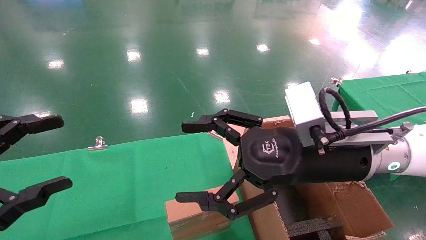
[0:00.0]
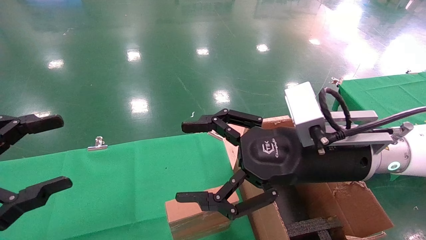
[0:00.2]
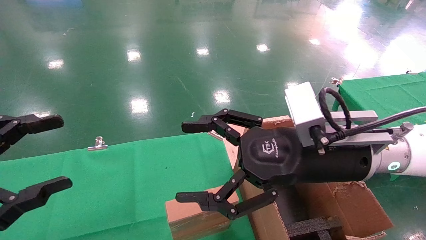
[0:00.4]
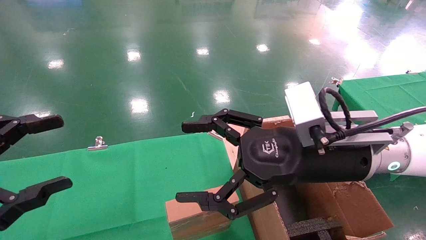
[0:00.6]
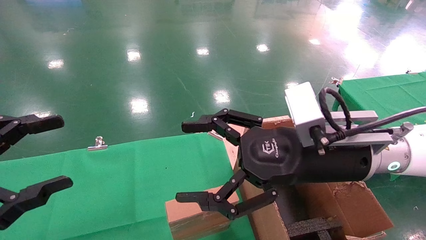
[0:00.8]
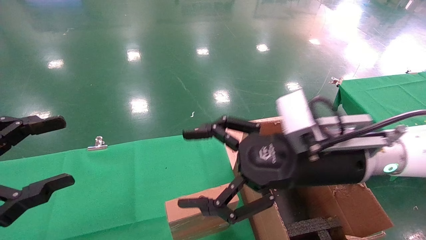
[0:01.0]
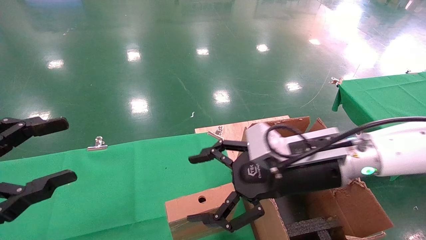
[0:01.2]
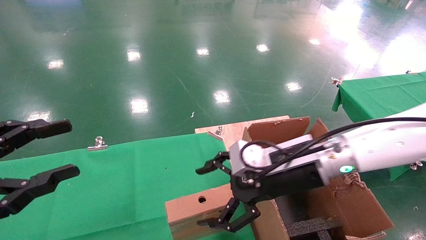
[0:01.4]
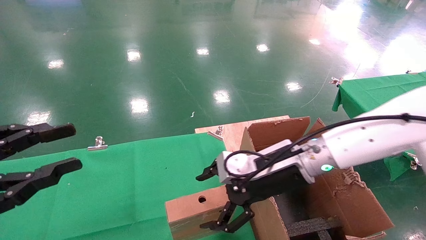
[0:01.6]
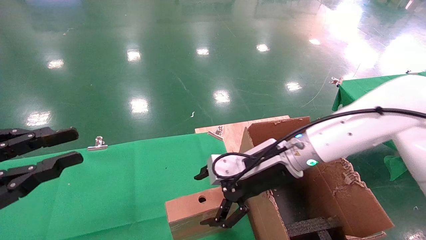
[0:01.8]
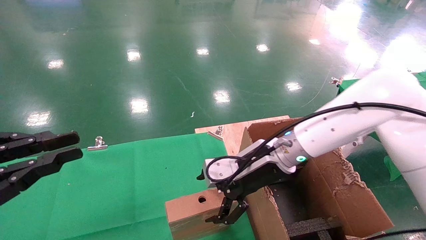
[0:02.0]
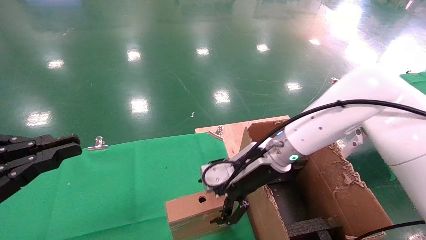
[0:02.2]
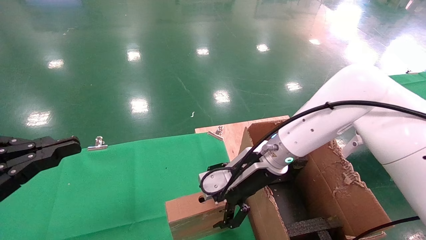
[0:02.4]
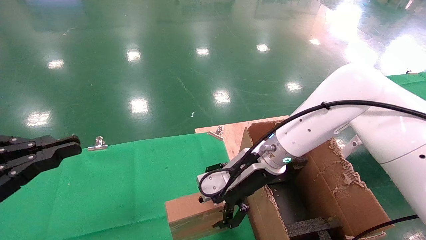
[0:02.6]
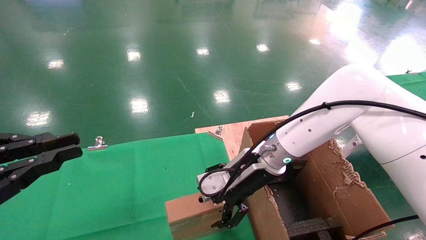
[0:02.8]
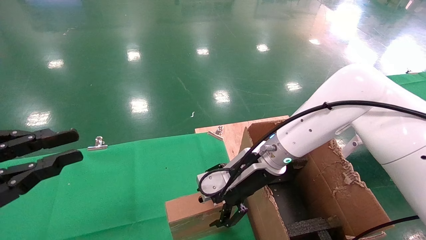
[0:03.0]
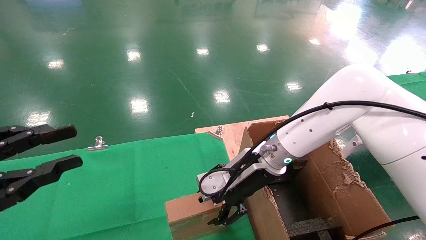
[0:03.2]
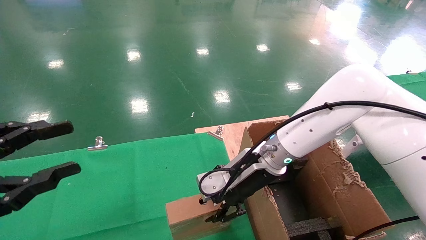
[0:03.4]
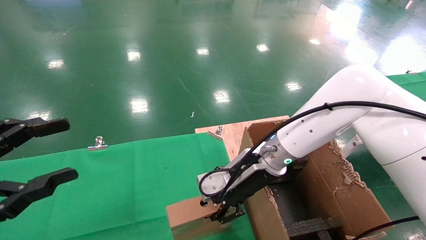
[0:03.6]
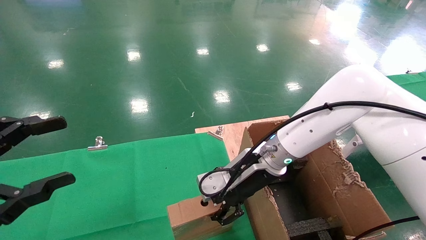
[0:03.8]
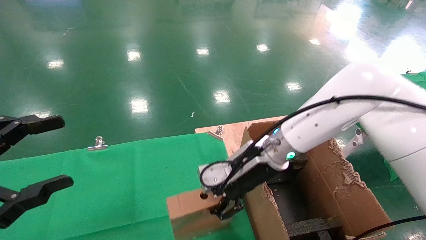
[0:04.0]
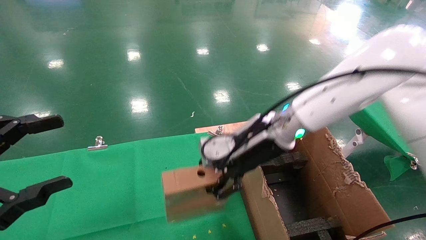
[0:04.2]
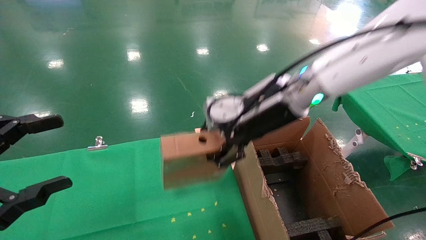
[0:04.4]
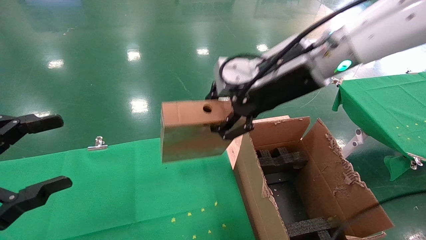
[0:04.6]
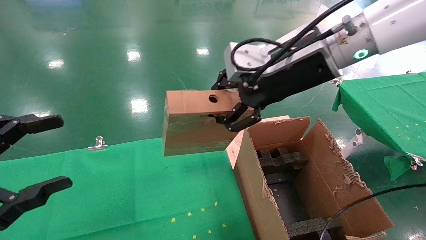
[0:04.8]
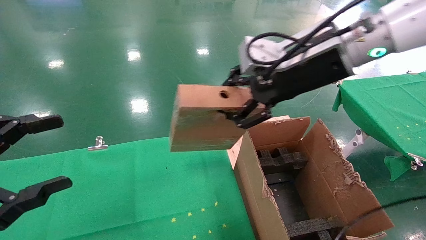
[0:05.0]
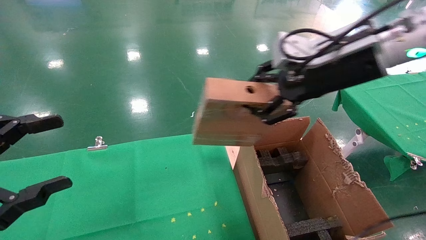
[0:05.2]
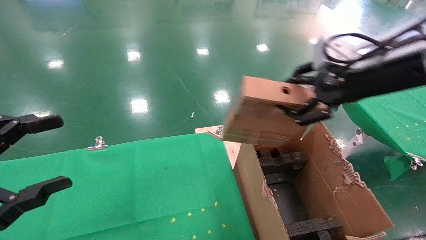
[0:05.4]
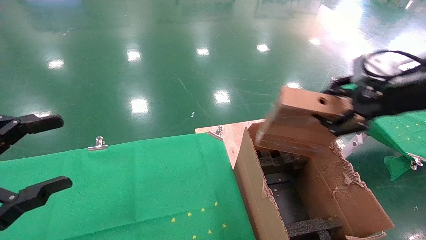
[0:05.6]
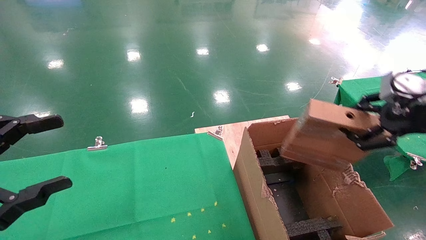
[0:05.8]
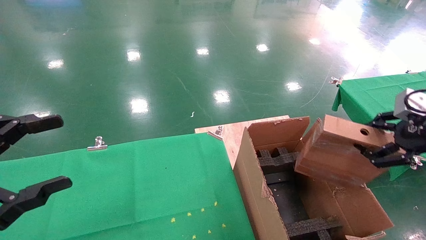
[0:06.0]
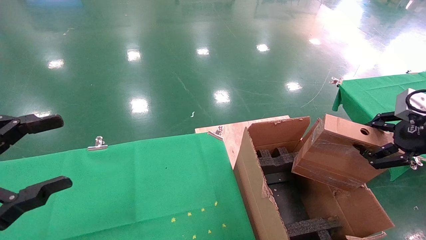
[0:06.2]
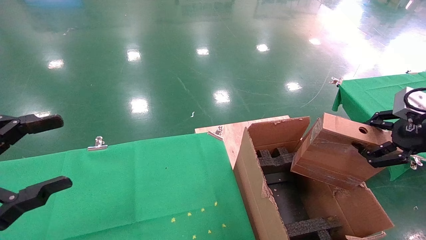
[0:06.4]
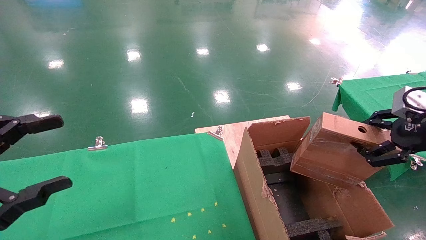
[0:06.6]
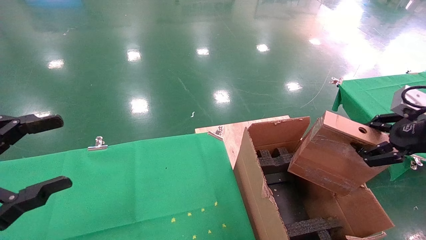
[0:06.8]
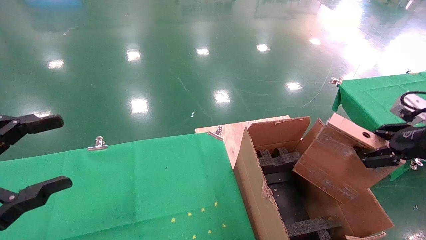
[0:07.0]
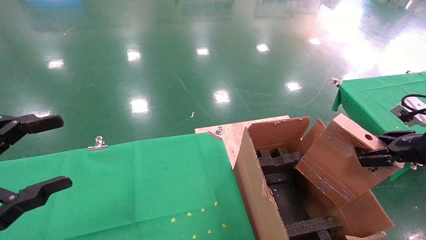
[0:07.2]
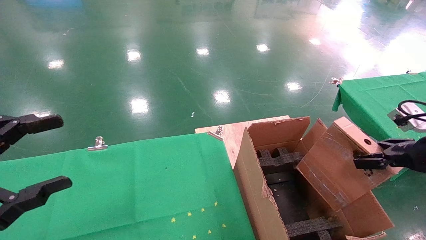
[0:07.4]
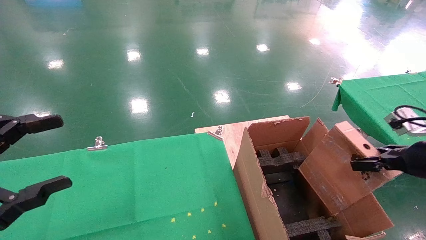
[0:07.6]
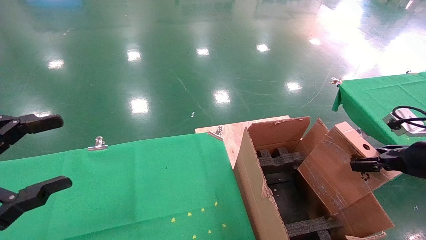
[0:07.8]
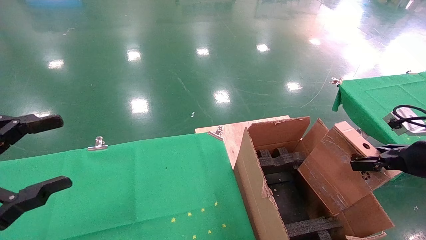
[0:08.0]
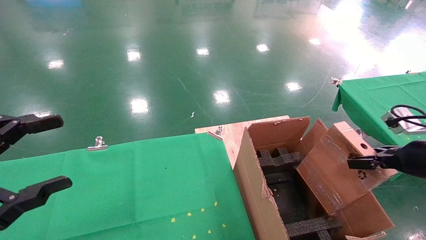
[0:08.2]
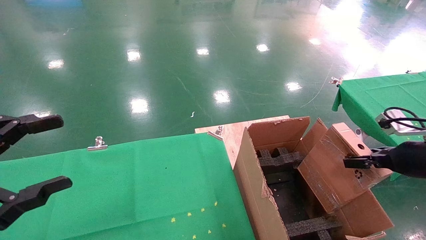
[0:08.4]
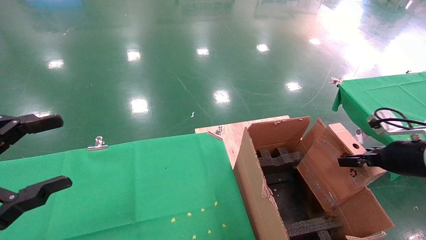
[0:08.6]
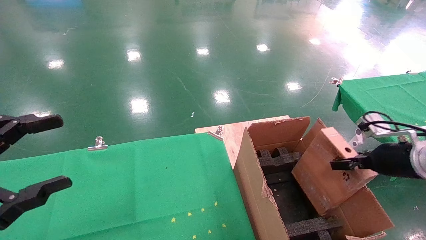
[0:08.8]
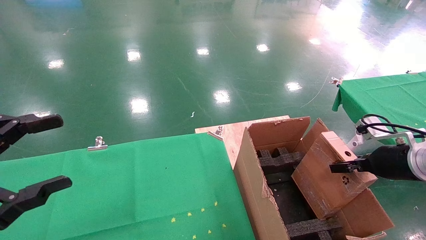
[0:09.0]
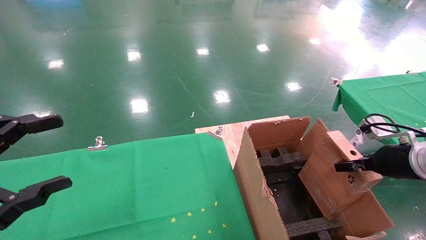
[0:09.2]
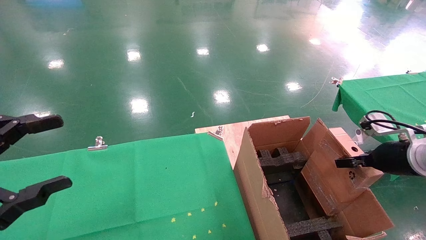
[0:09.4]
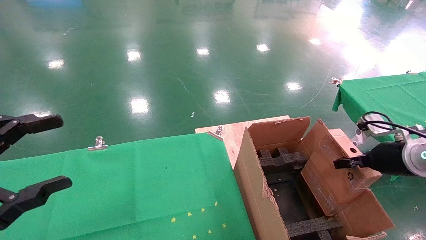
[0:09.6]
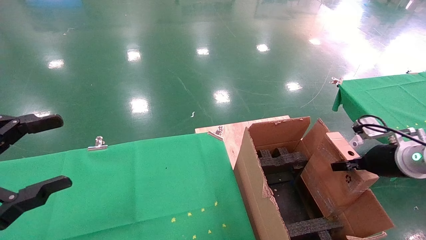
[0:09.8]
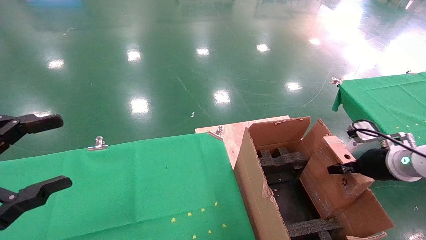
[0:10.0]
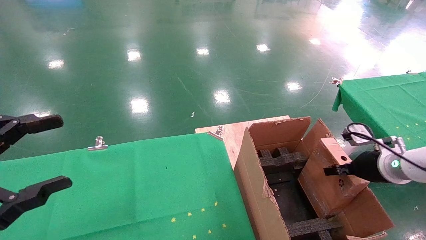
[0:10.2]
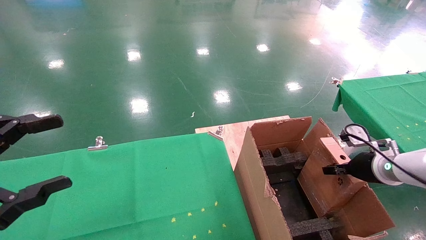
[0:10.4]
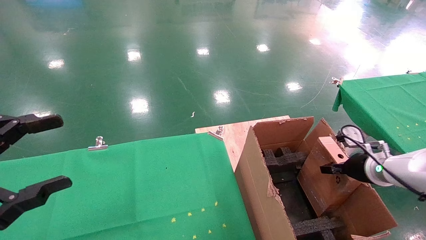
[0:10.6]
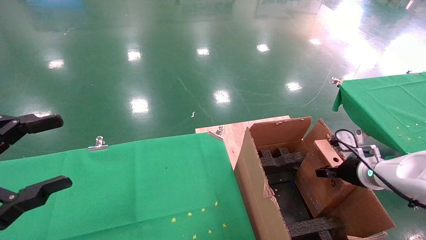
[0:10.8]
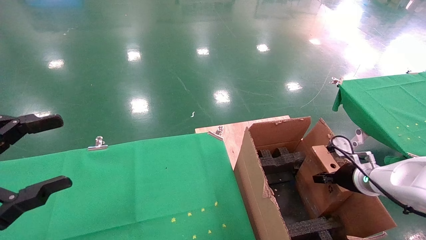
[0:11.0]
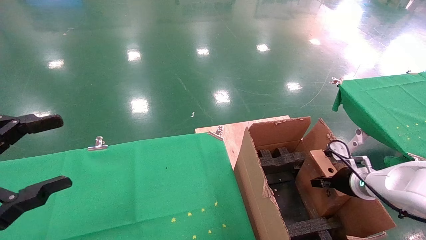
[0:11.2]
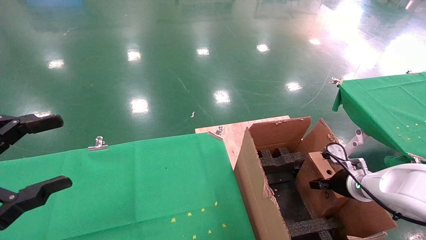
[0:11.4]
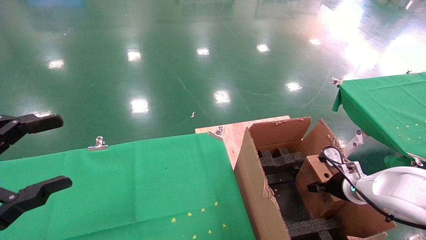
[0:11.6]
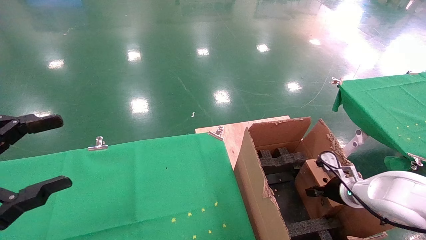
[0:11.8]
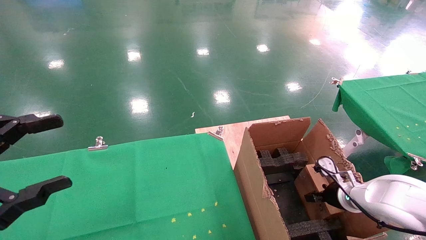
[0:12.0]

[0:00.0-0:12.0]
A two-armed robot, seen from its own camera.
Task of the whole recording: using a robotic arm to pick up a cardboard box and palace it the carton.
Step, 0:01.2 to 0:03.6: Pick up the mouse and the power cord paper box.
0:00.0 to 0:01.6: The right gripper is displaced forward and downward by roughly 10 cm, while the left gripper closes its fingers.
0:01.6 to 0:03.0: The left gripper closes. Meanwhile the right gripper changes place by some 5 cm.
0:03.0 to 0:04.4: The right gripper heads upward, covering roughly 15 cm, and closes up; the left gripper opens.
0:04.4 to 0:06.0: The right gripper moves to the right and backward, roughly 30 cm.
0:06.0 to 0:07.6: The right gripper goes approximately 10 cm downward.
0:07.6 to 0:09.0: The right gripper shifts about 5 cm forward.
0:09.0 to 0:10.4: The right gripper is displaced forward and downward by about 5 cm.
0:10.4 to 0:12.0: The right gripper goes some 10 cm downward.

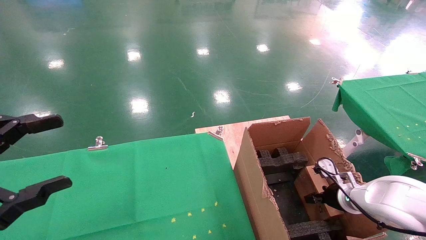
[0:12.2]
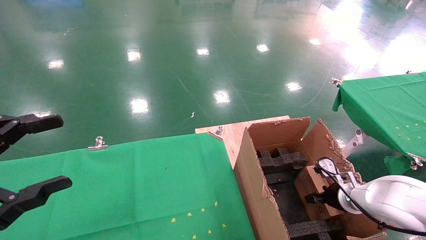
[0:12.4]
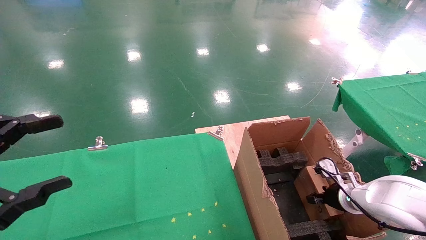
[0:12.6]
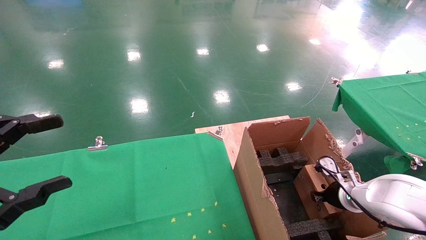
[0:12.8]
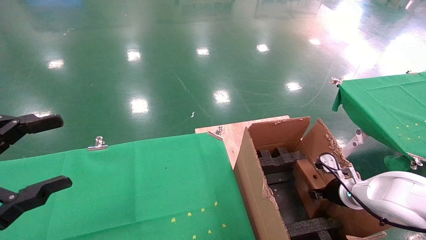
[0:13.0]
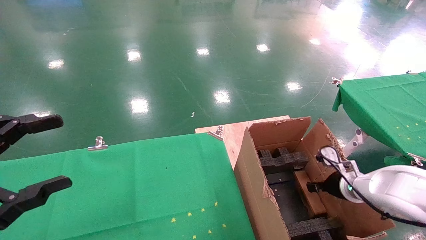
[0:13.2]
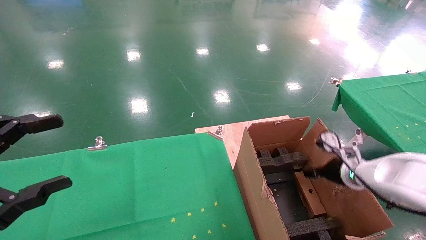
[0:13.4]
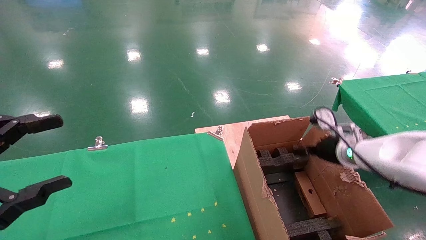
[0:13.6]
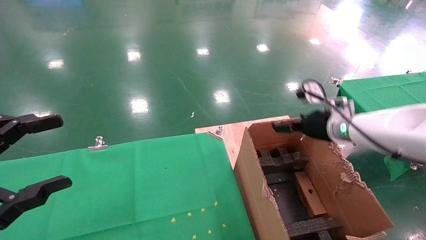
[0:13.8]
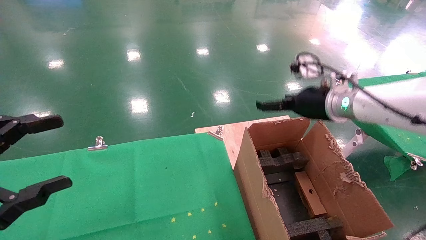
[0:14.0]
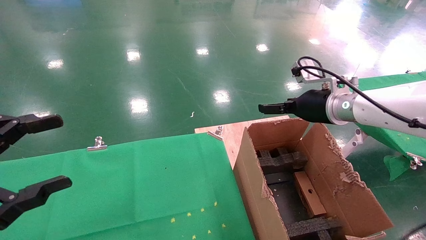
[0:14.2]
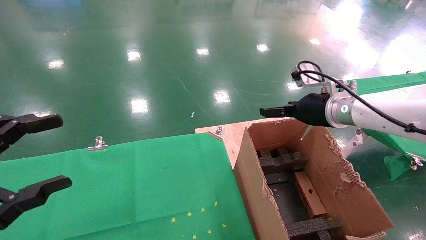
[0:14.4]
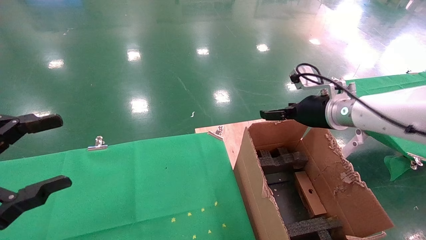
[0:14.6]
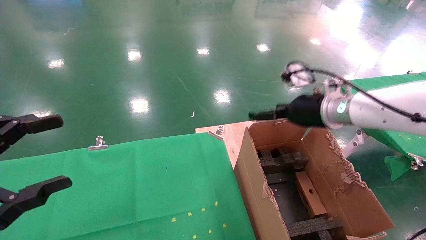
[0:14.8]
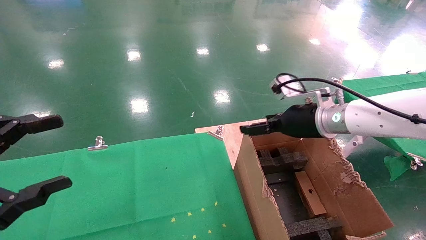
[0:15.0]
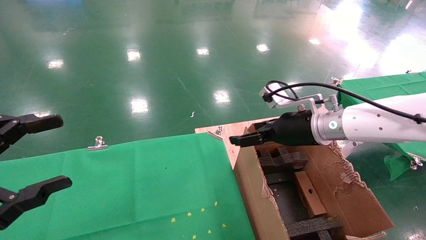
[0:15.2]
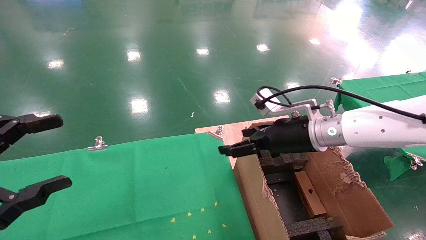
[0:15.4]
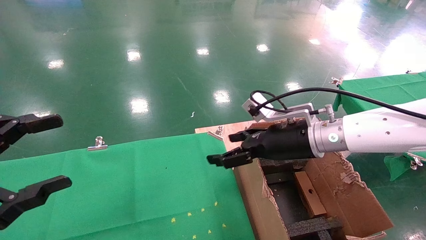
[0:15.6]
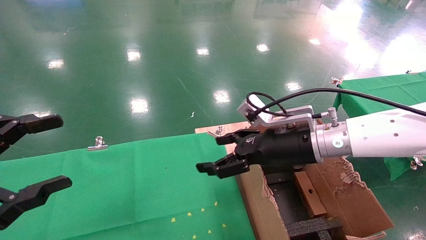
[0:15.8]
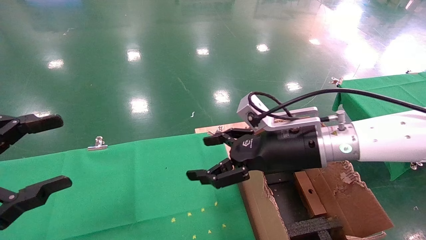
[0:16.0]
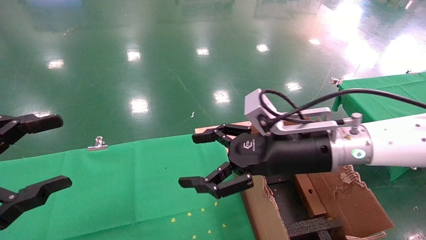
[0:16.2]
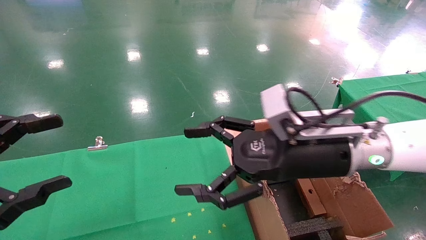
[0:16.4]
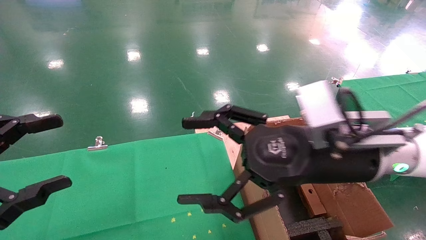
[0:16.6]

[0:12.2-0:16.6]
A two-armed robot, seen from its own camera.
Task of the whole recording: using a robotic arm to pick up a cardboard box and palace it the carton.
0:12.2 to 0:13.6: The right gripper is displaced upward by some 15 cm, and opens its fingers.
0:13.6 to 0:15.2: The right gripper goes roughly 10 cm to the left and upward.
0:15.2 to 0:16.6: The right gripper shifts roughly 15 cm backward and to the left.
